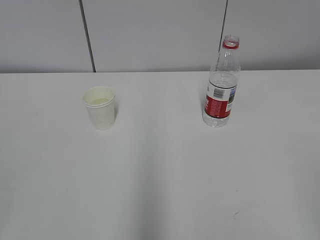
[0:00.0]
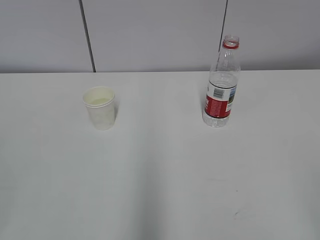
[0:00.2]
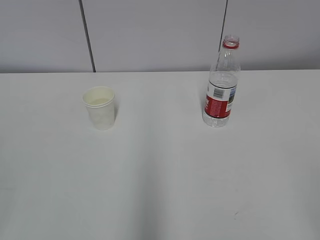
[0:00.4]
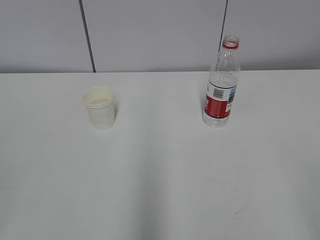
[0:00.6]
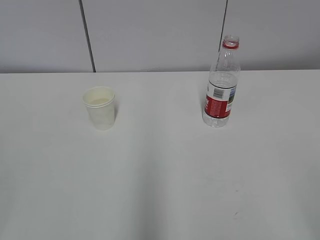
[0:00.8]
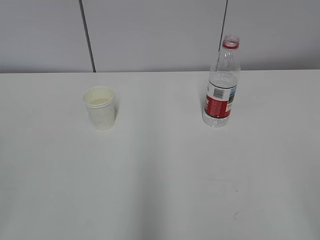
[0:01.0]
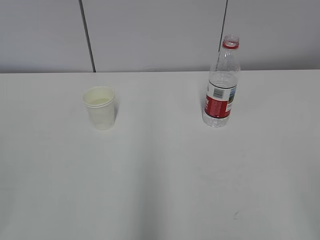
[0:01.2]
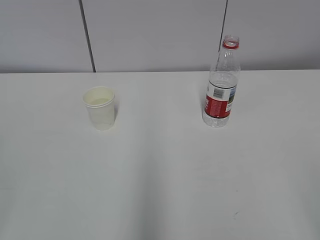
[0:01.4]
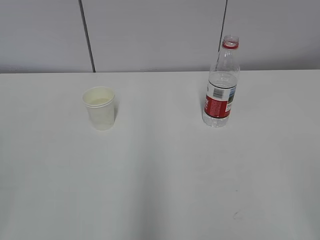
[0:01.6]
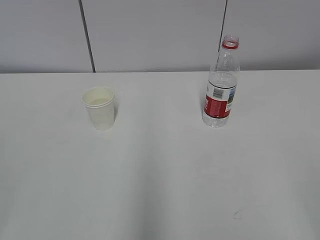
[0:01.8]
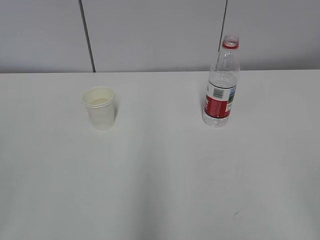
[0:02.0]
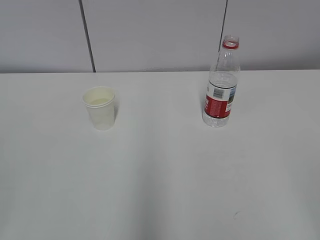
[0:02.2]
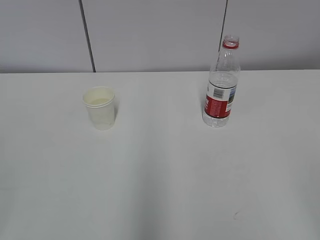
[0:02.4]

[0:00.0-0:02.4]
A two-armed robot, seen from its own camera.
0:01.2 to 0:02.4: Neither gripper changes place.
